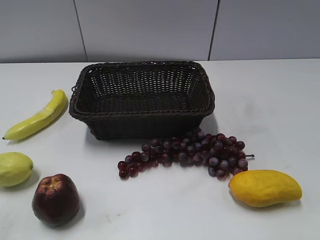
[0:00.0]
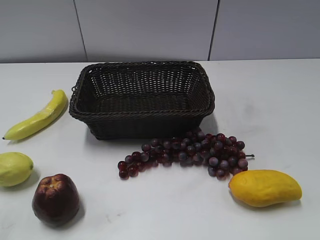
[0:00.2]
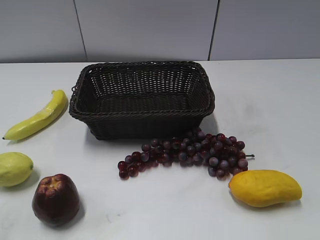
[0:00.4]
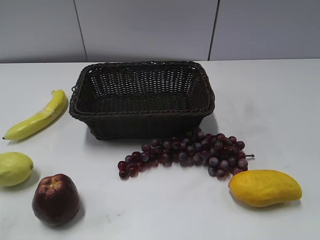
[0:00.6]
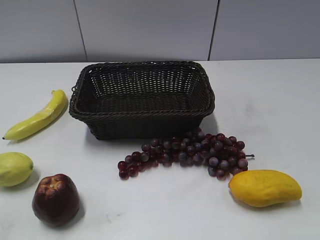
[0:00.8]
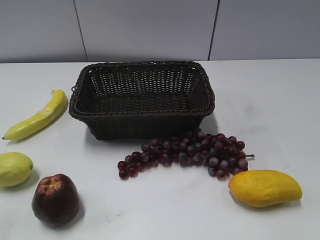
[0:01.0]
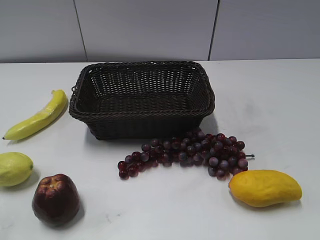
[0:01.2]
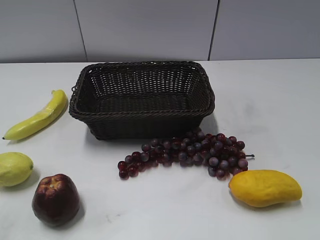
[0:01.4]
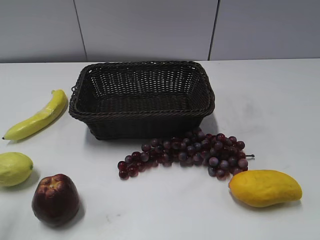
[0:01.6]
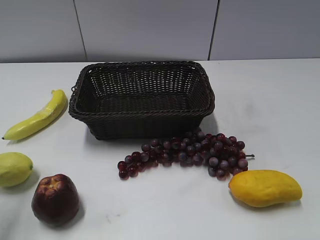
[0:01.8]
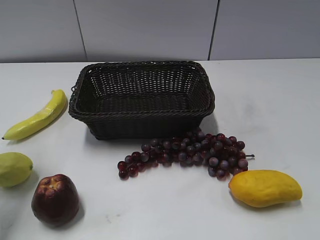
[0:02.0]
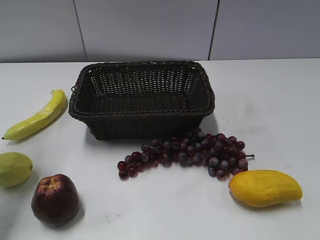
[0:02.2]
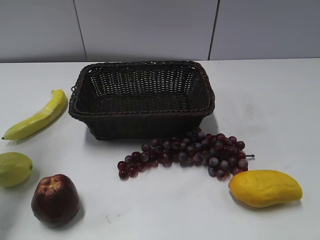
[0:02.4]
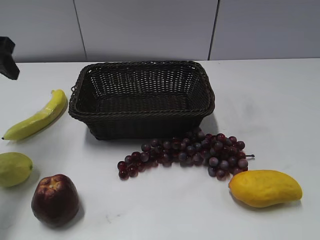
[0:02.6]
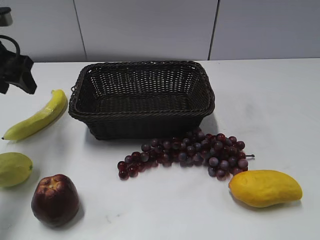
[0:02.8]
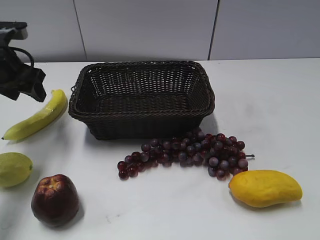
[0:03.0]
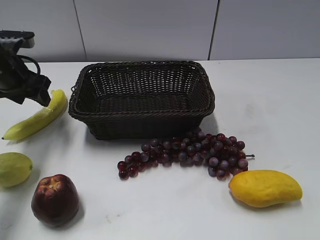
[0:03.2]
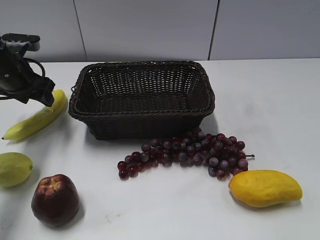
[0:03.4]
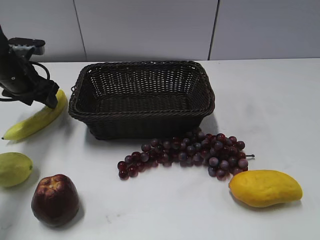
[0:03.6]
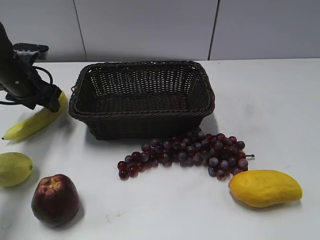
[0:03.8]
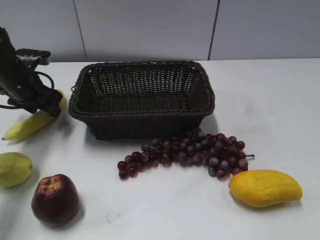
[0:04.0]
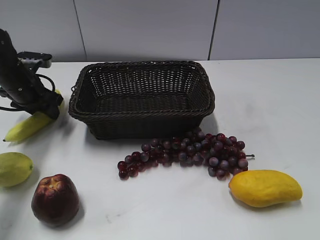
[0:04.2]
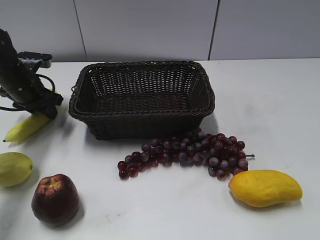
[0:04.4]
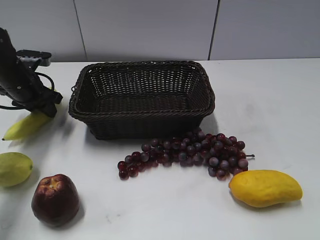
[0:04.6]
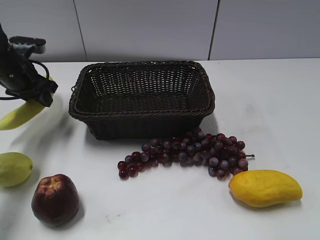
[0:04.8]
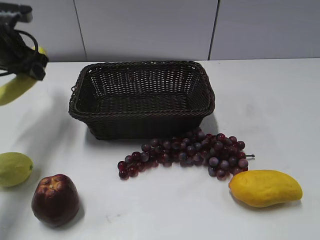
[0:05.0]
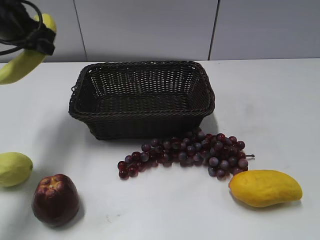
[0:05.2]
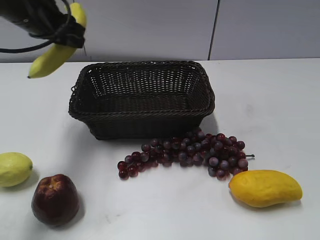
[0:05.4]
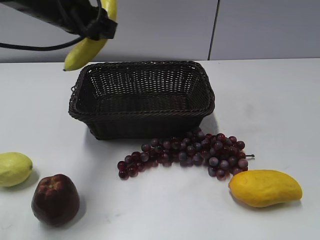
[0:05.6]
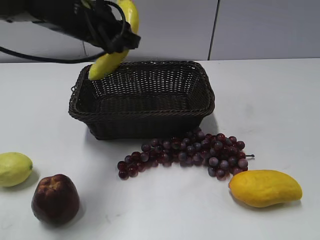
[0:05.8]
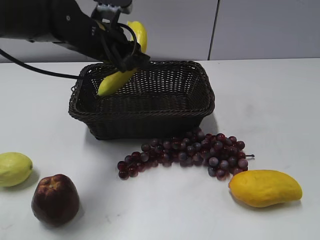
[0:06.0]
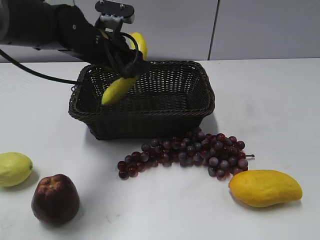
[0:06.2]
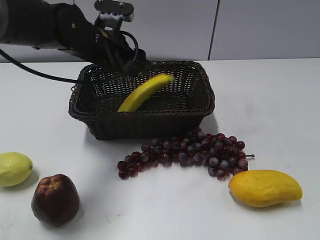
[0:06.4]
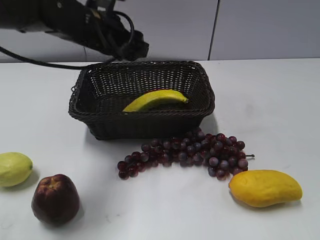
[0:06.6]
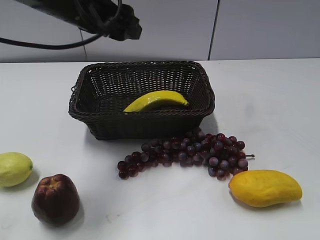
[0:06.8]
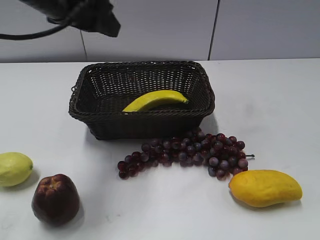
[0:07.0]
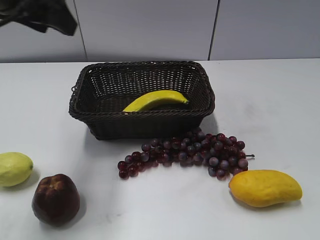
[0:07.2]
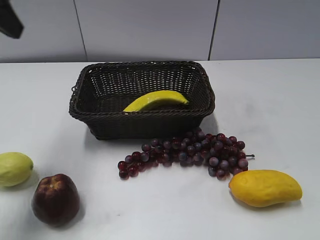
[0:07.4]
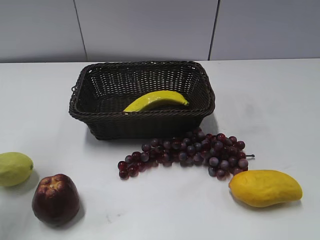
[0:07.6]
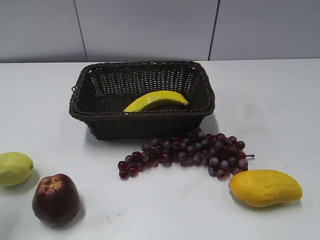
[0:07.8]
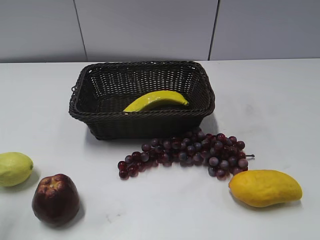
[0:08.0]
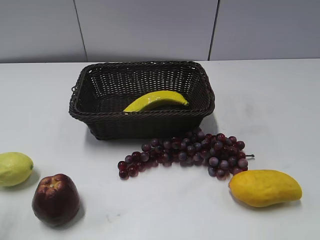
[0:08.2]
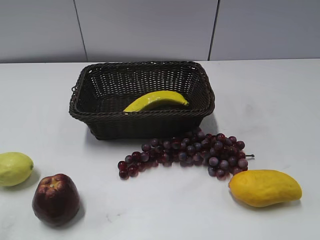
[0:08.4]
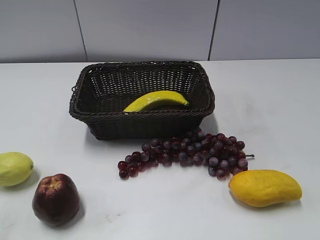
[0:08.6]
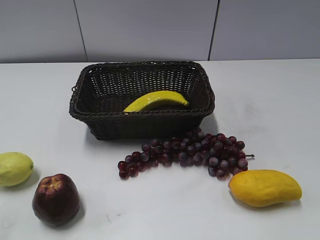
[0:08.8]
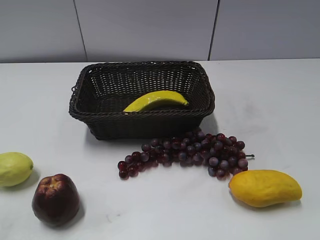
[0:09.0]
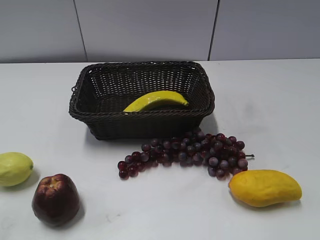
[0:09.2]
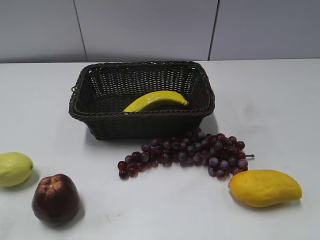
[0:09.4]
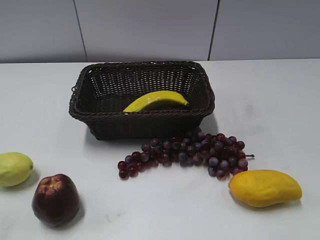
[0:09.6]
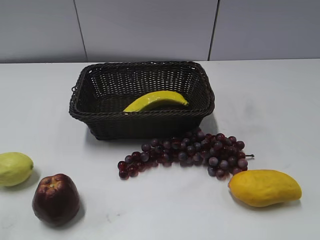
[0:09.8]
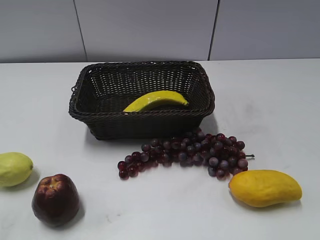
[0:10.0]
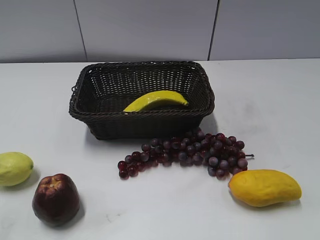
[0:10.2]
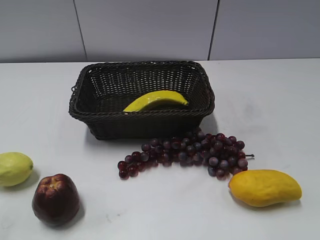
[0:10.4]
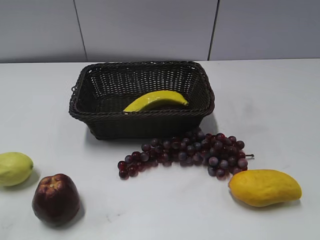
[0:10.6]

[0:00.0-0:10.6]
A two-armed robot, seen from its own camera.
Step, 0:02.6 to 0:04.2: Grasp the banana with left gripper.
Step, 0:04.4 to 0:06.4: Place the banana in the basket with left gripper.
0:01.6 to 0:03.0: The left gripper is displaced forward and downward by some 30 cm.
0:03.0 to 0:04.6: The left gripper is displaced downward by some 5 cm, and closes up.
0:04.6 to 0:06.0: The left gripper goes about 20 cm to the right and upward.
0:06.0 to 0:07.6: The left gripper moves to the left, upward and backward, roughly 30 cm, and opens its fingers.
0:07.6 to 0:09.0: The left gripper heads backward, covering roughly 25 cm.
